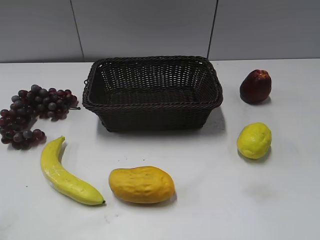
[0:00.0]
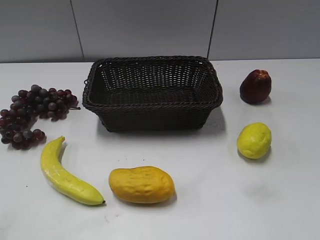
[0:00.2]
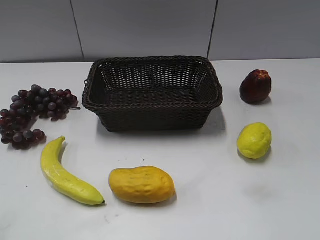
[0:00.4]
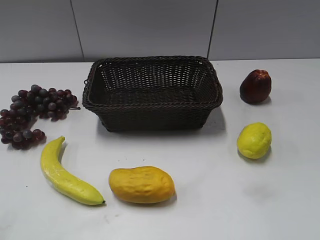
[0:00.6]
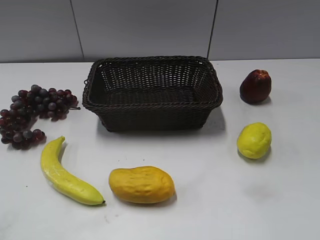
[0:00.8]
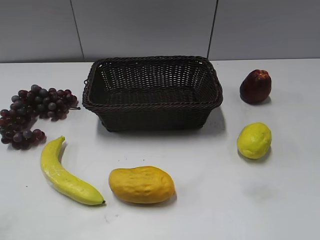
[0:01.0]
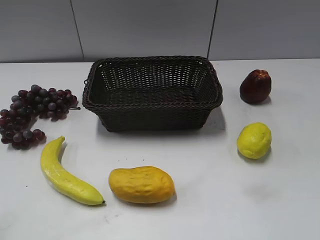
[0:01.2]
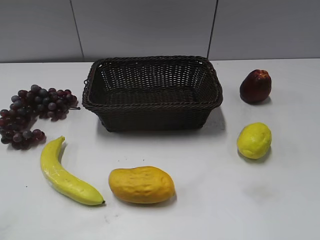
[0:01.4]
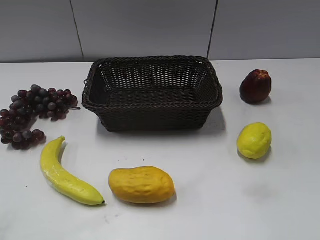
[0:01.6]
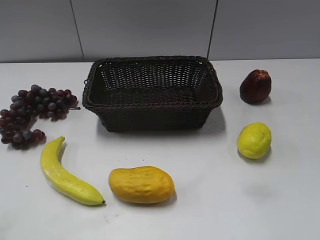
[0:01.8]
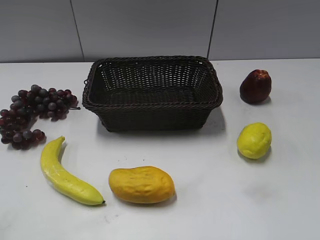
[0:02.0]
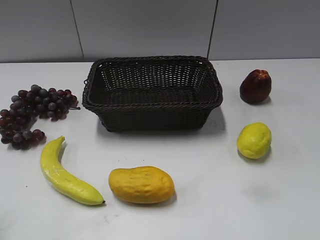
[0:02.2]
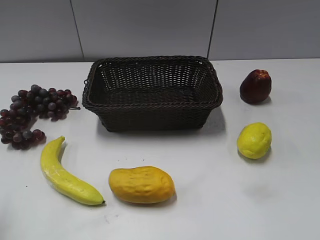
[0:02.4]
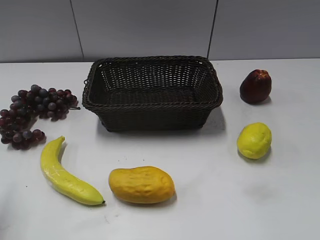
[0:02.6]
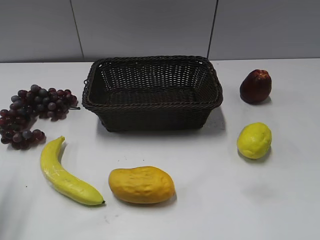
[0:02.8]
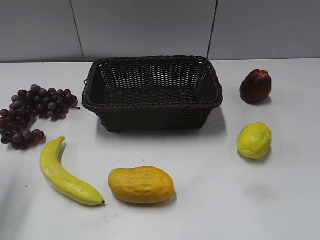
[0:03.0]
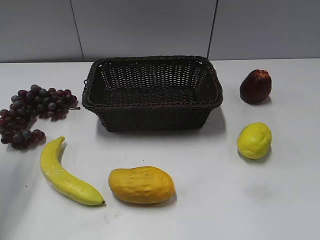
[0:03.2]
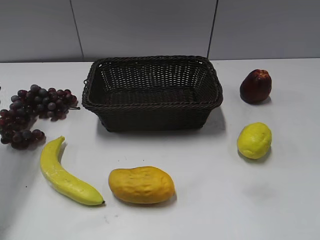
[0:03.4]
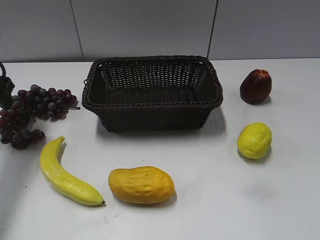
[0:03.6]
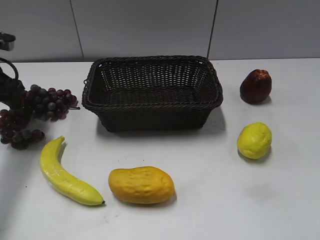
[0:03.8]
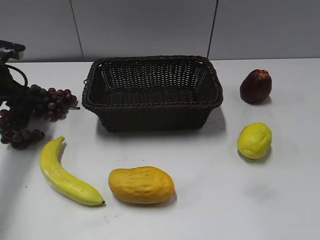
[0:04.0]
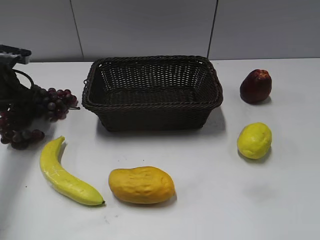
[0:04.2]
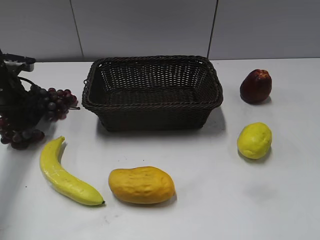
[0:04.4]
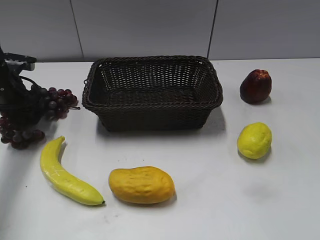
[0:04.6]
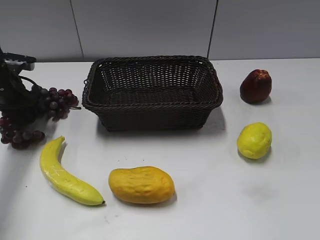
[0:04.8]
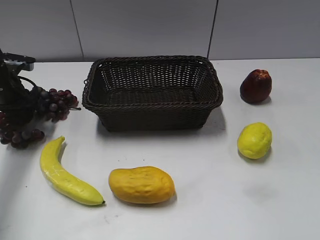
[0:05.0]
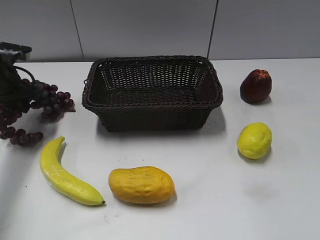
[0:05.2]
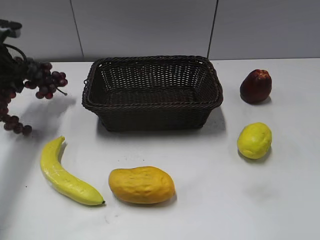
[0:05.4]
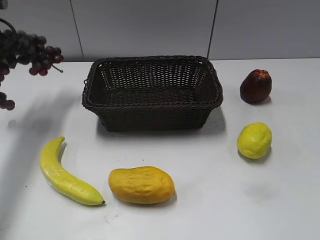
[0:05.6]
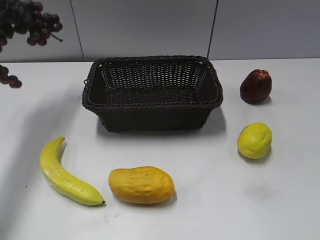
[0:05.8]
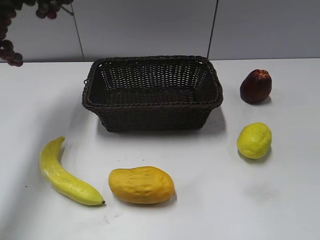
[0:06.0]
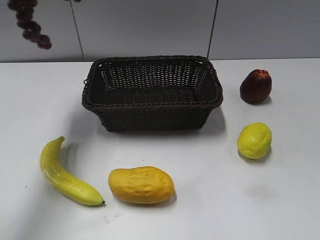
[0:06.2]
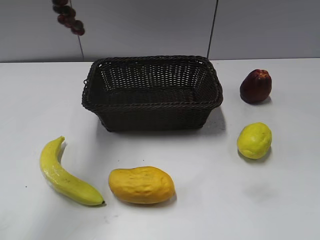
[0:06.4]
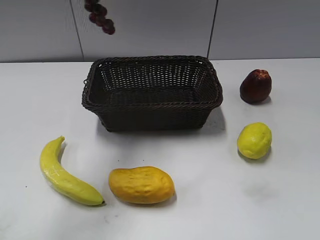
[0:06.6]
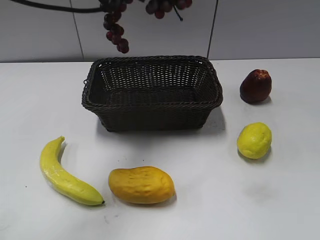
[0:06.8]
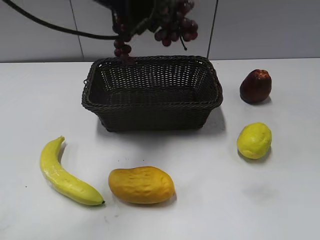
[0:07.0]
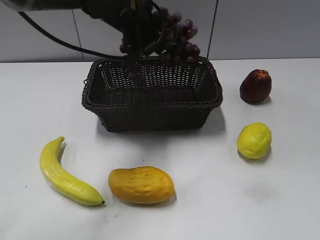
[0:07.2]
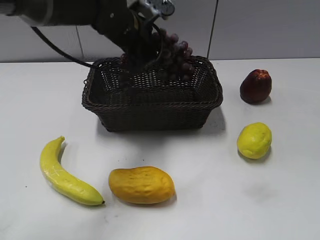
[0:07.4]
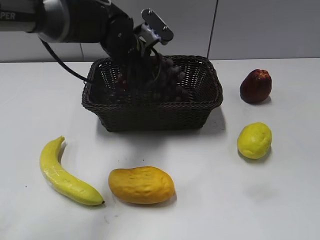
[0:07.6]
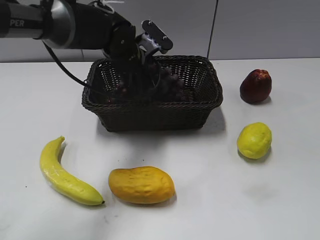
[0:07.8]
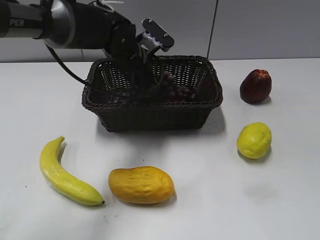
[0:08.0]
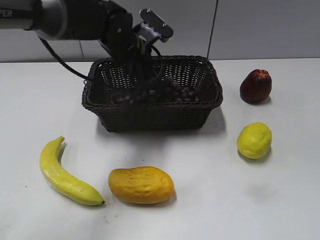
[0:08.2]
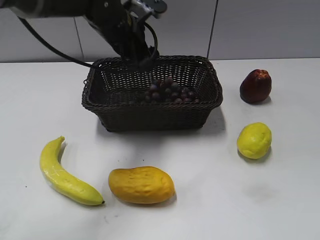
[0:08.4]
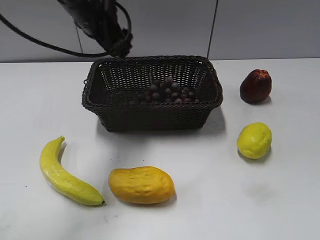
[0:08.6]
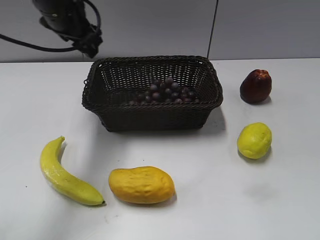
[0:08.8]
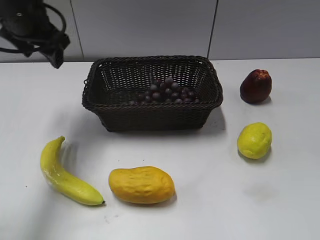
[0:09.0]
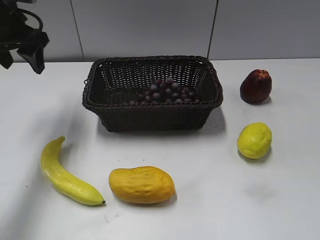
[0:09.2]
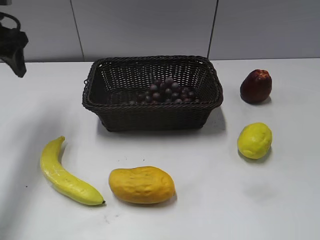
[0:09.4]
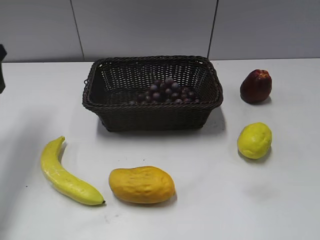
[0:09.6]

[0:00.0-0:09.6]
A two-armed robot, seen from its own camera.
Step, 0:03.4 to 0:05.0: Grasp the grape with left gripper.
Step, 0:05.2 to 0:08.0: Place the grape in the basket with left gripper.
0:01.6 to 0:03.2: The left gripper travels forward by roughly 30 cm.
0:03.2 to 0:04.8: The left gripper shifts some 15 cm forward and downward, and closes its fingers.
0:04.8 to 0:06.4: The left gripper is displaced upward and to the right by about 30 cm.
0:06.4 to 0:08.0: The left gripper goes some 20 cm downward and to the right, and opens its fingers.
0:08.0 to 0:09.6: The left gripper shifts approximately 25 cm to the left.

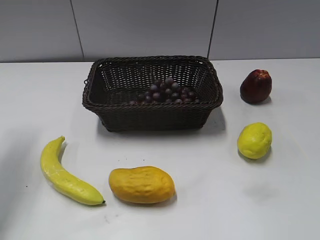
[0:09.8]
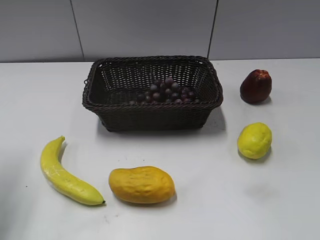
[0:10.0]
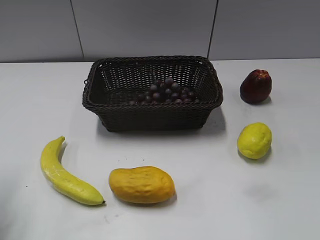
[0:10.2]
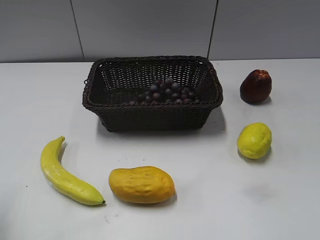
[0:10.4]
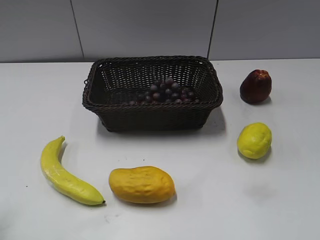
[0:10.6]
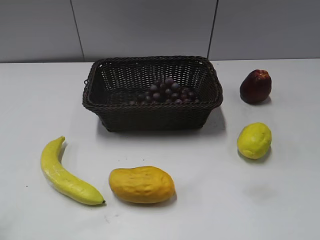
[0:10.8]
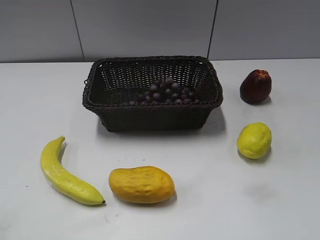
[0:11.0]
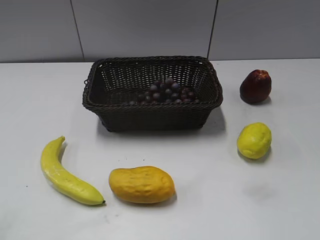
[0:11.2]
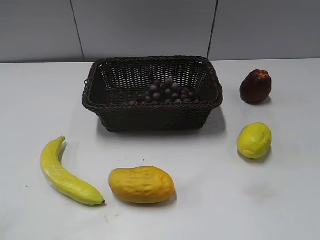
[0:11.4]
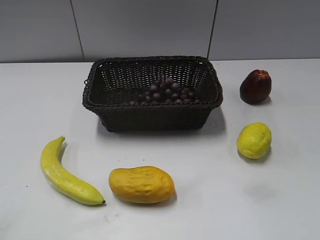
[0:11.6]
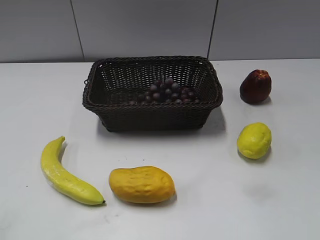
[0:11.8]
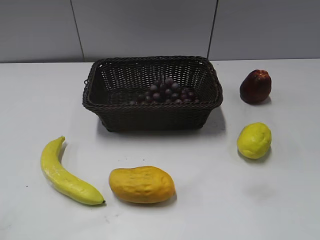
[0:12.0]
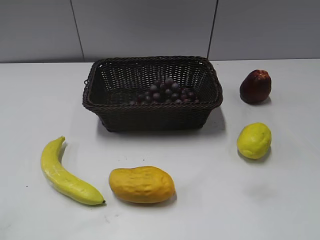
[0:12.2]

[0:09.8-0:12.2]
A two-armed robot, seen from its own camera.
0:09.8 to 0:11.0: The left gripper goes some 25 cm backward.

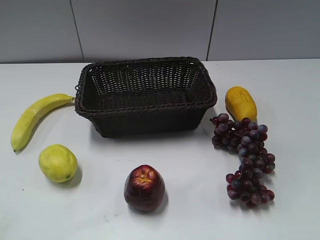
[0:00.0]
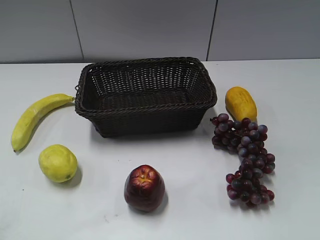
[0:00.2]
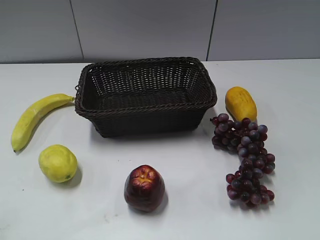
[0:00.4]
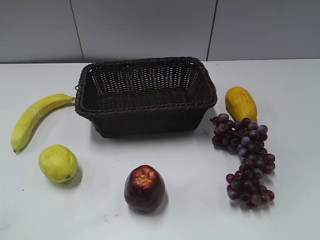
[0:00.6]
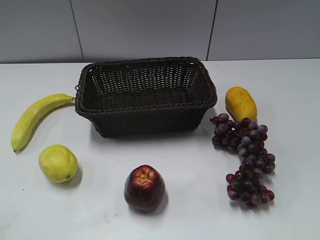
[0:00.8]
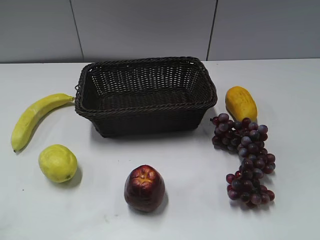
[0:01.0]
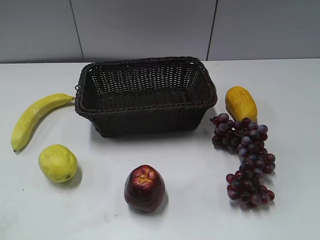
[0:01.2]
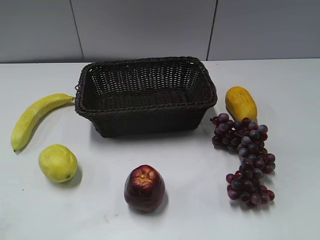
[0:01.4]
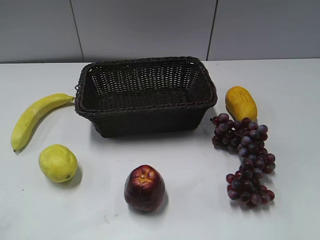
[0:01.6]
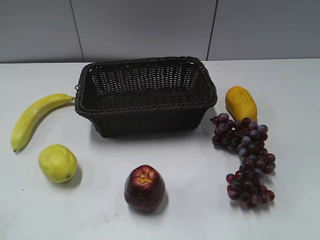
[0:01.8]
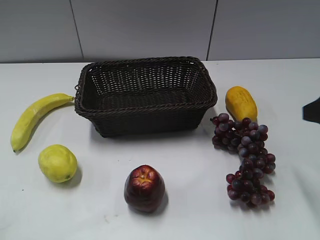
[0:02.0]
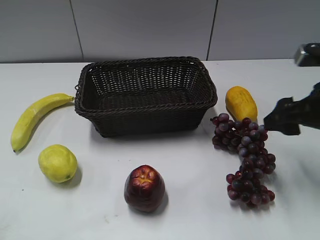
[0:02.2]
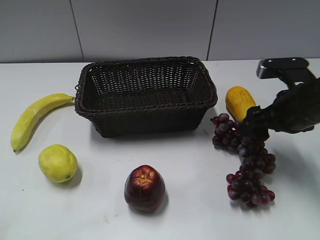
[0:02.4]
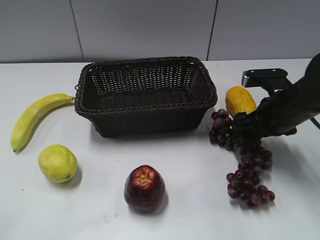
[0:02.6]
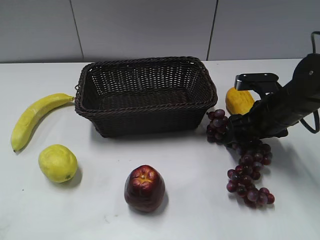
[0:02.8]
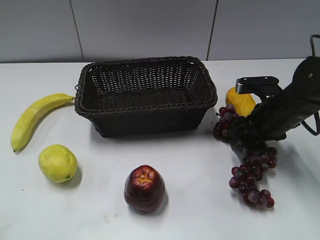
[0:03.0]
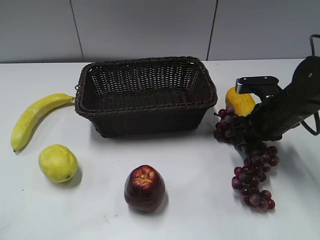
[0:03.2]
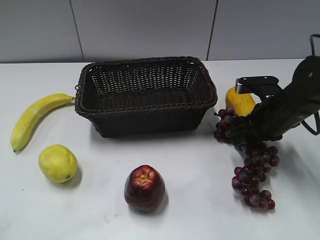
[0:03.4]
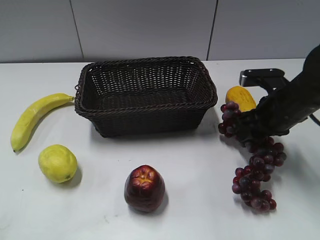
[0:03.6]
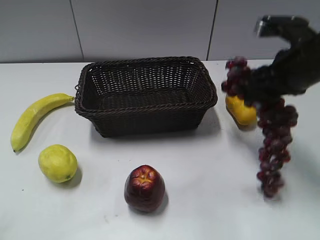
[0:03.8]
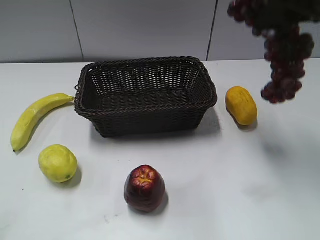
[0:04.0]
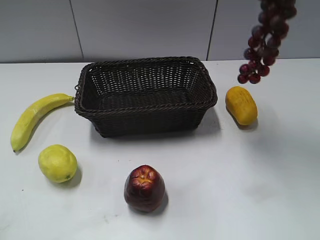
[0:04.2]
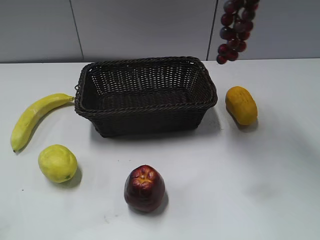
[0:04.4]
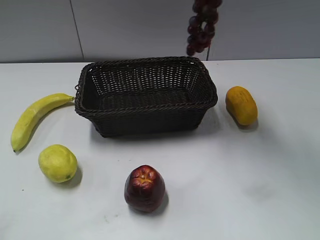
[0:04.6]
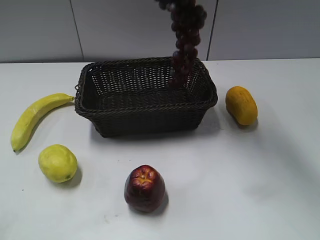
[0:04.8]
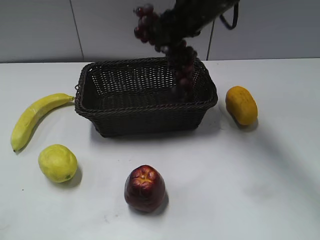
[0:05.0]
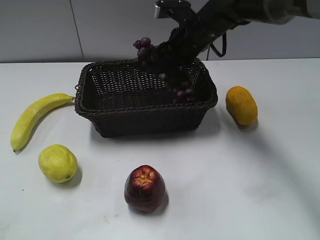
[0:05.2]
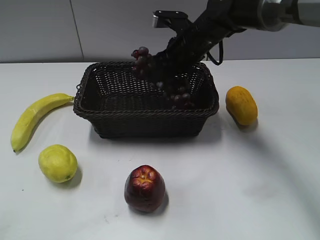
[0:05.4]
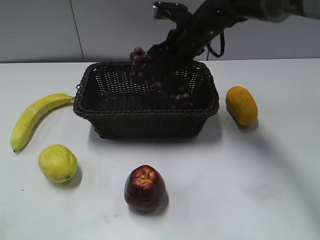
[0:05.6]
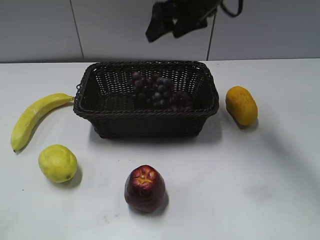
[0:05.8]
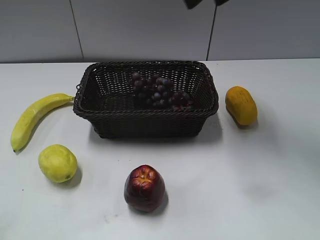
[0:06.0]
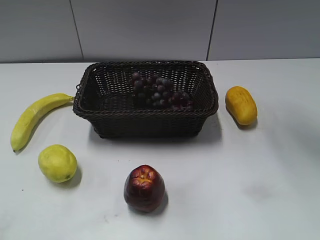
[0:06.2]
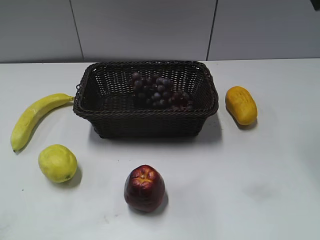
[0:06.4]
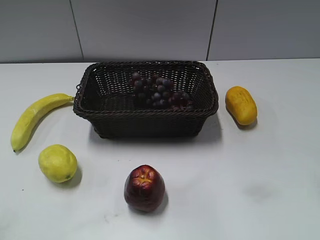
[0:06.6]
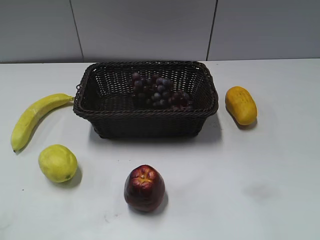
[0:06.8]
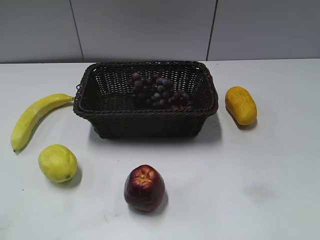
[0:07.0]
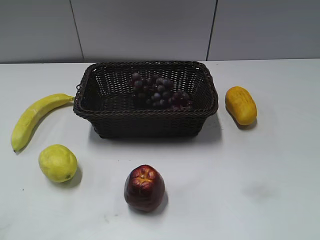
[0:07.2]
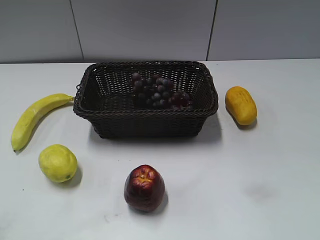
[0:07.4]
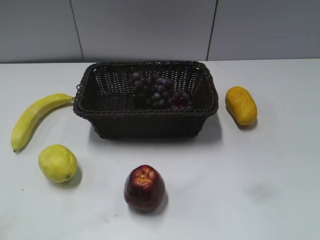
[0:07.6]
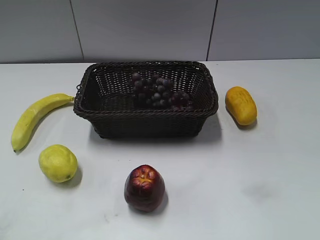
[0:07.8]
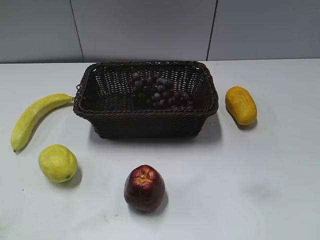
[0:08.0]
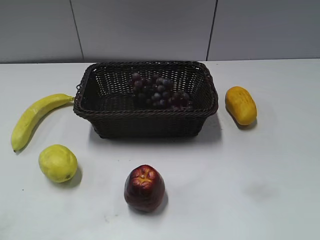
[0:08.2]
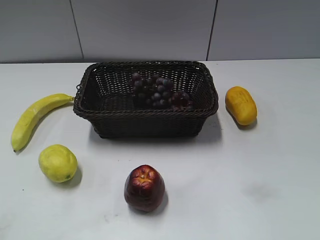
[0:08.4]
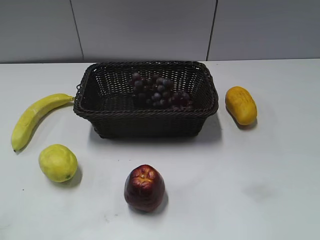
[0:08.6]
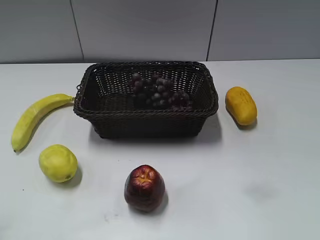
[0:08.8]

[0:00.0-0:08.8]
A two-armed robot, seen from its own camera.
Step, 0:02.0 to 0:03.2: Grasp the grape with right gripper.
Step, 0:03.4 to 0:05.6: Place the grape in the basket with right gripper.
0:01.4 to 0:03.0: The right gripper is displaced forward and downward by approximately 35 cm, and closes its fingers.
0:03.0 to 0:04.4: The right gripper moves upward, about 30 cm, and closes up.
0:04.4 to 0:05.8: The right gripper heads downward, forward and to the left, covering approximately 15 cm, and opens.
0:05.8 to 0:07.4: The right gripper moves backward and to the right, approximately 50 cm.
